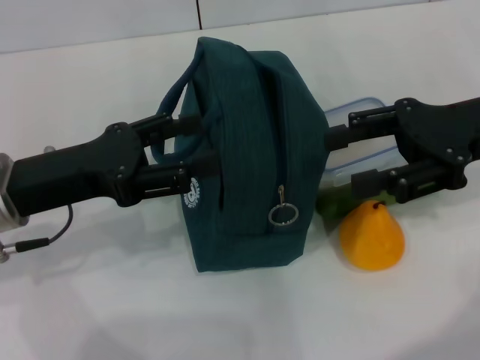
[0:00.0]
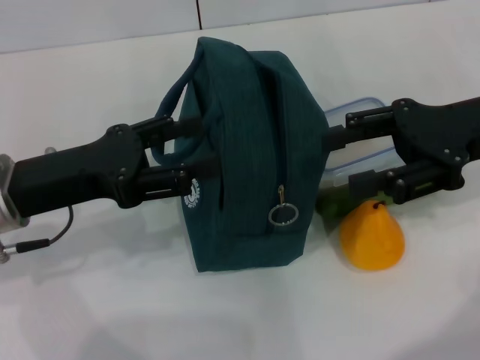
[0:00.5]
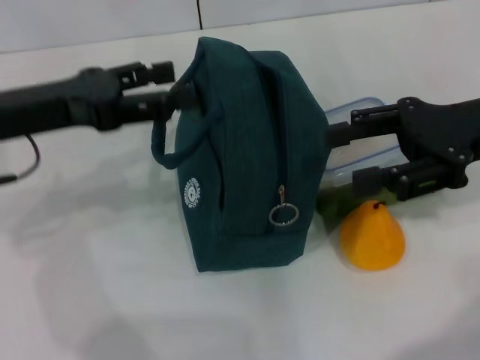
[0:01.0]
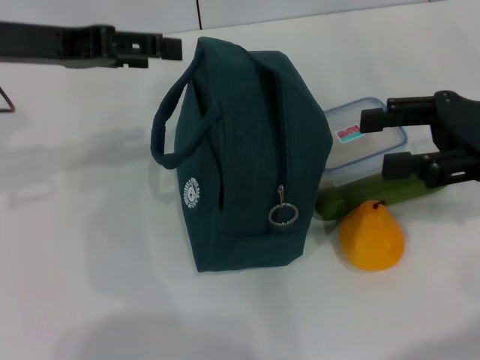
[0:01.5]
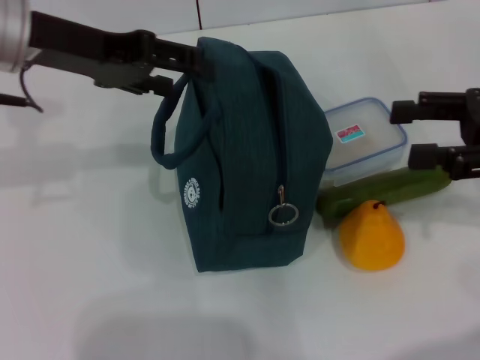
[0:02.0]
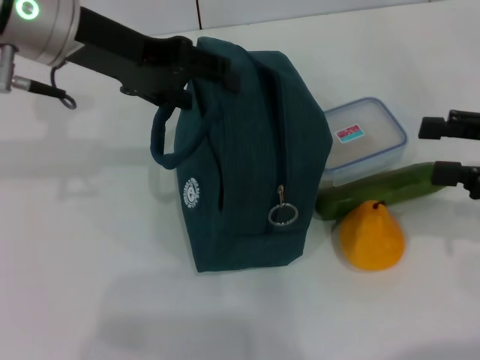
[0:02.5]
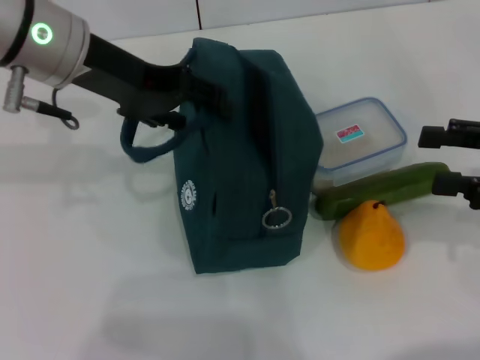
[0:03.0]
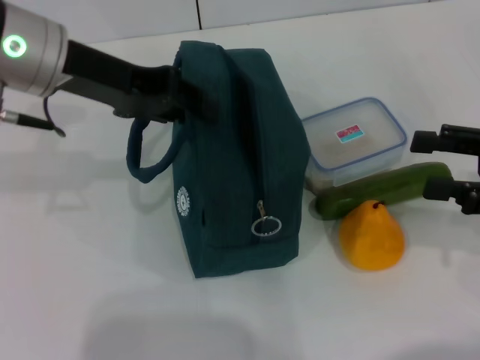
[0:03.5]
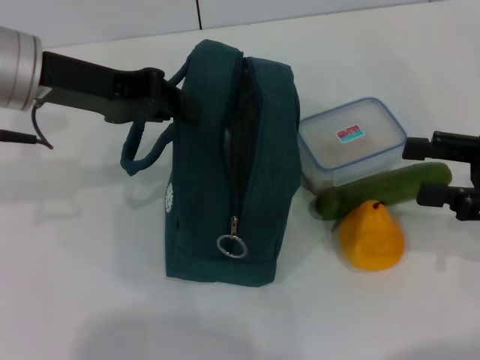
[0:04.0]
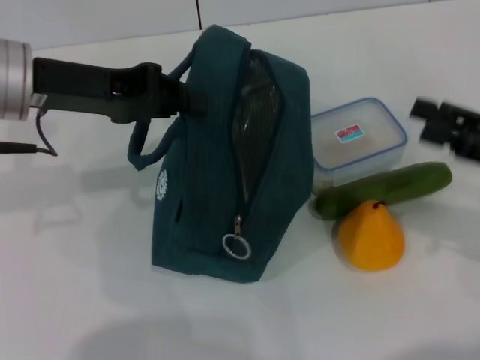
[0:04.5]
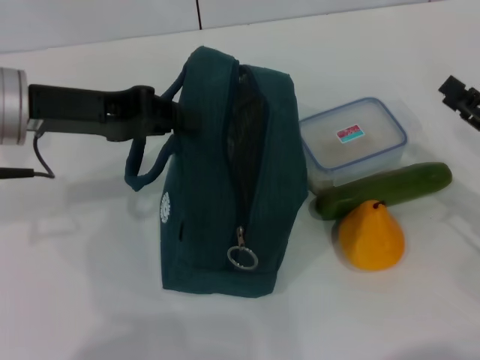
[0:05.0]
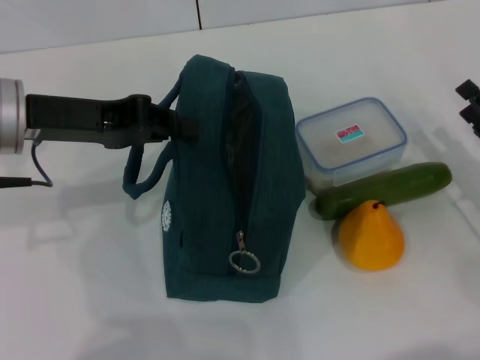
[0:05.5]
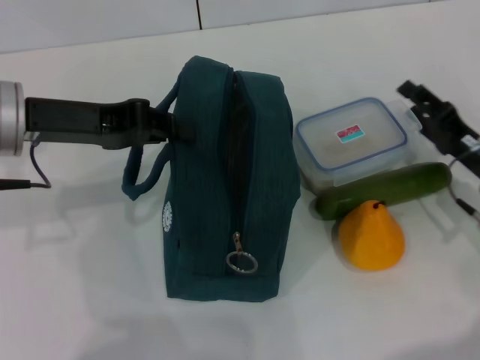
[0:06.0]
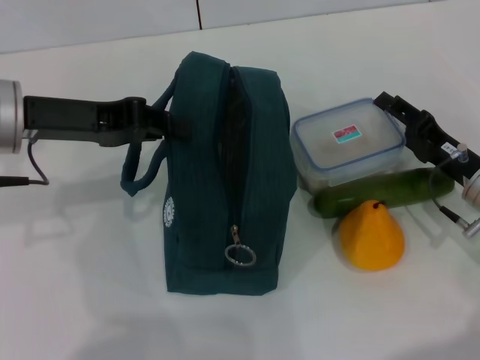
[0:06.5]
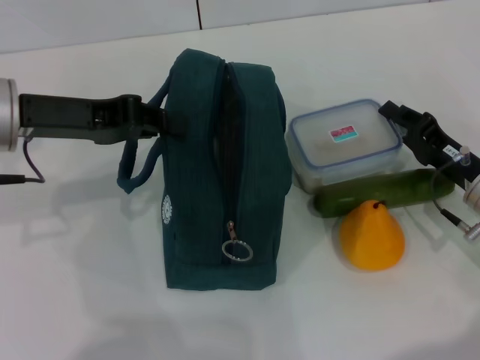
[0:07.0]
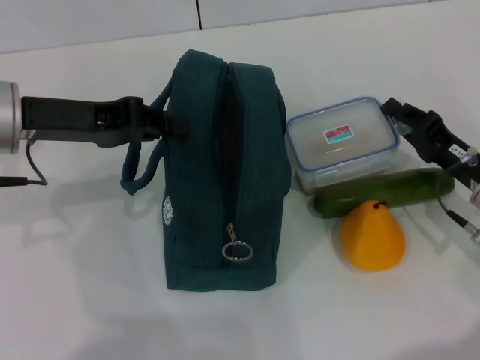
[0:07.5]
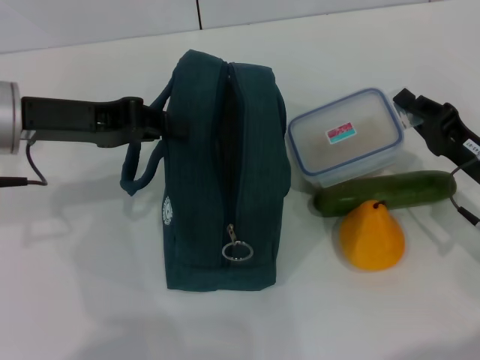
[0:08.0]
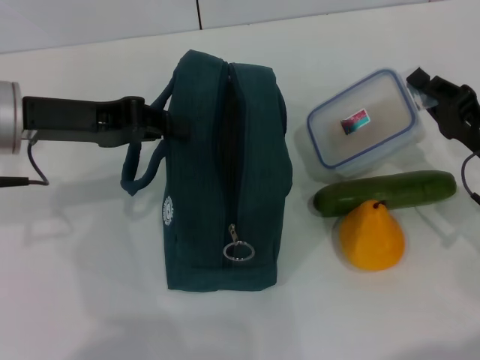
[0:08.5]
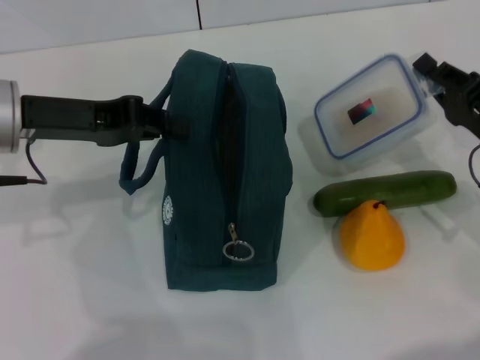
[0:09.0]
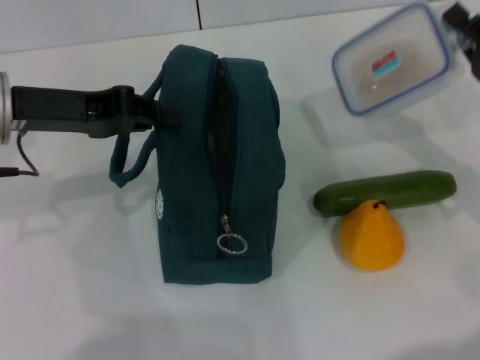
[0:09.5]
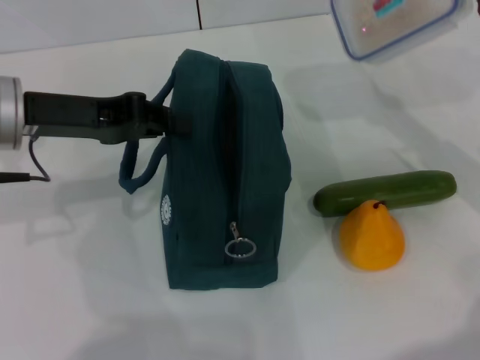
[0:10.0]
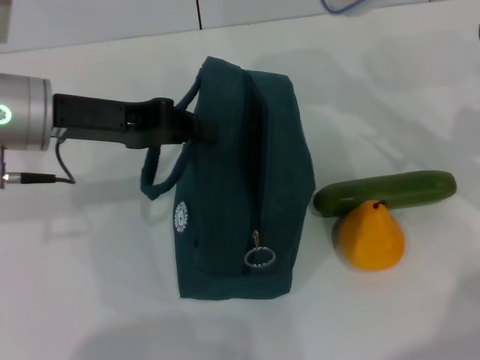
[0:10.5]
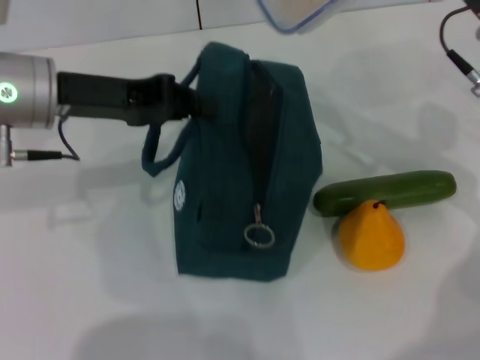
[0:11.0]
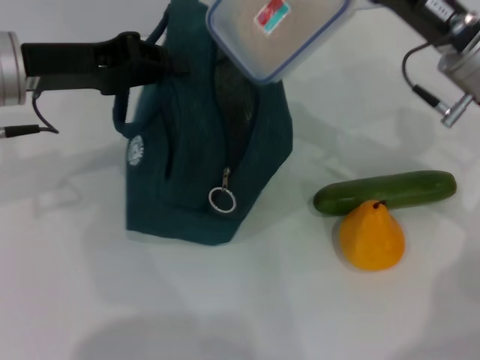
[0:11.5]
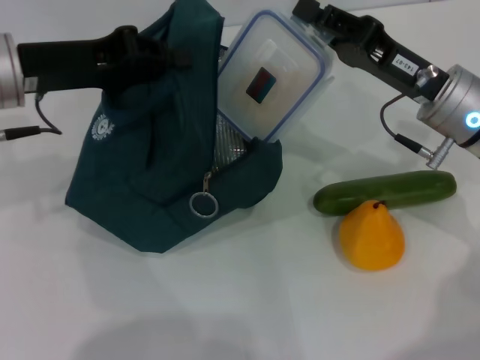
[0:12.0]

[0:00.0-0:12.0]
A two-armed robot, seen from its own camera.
Step, 0:00.0 to 0:03.5: Hold the lunch bag with your left hand.
Step, 0:04.0 to 0:07.5: Pick up the lunch box with your right hand.
0:00.0 to 0:02.0: The left gripper heads upward and forward, covering some 15 cm. Meanwhile the right gripper goes some 5 cm to the right.
0:02.0 to 0:04.0: The left gripper closes up. Meanwhile the right gripper shifts by approximately 5 cm.
0:04.0 to 0:06.0: The right gripper shifts about 10 cm downward.
0:06.0 to 0:08.0: The right gripper closes its fingers.
0:08.0 to 0:10.0: The right gripper goes roughly 10 cm upward.
0:10.0 to 0:12.0: The right gripper travels to the left by some 10 cm.

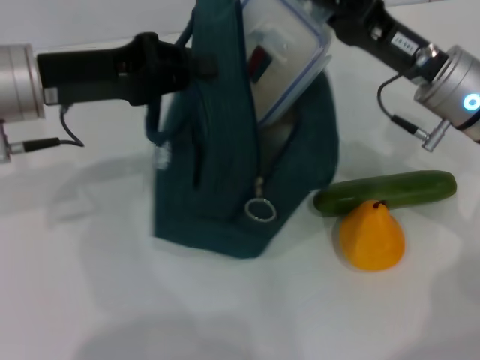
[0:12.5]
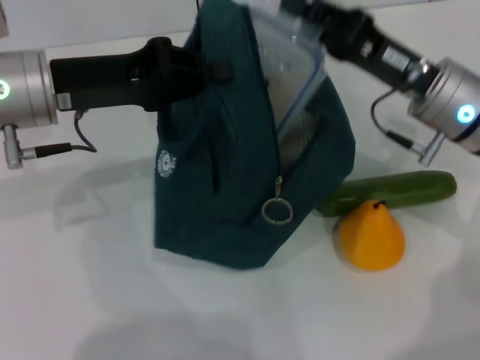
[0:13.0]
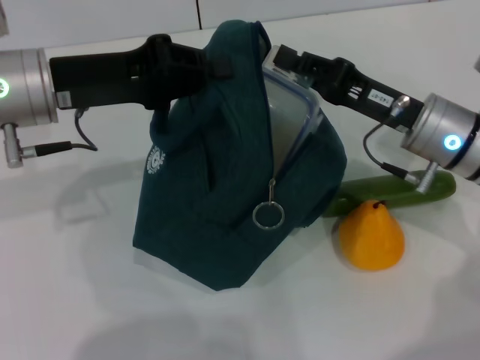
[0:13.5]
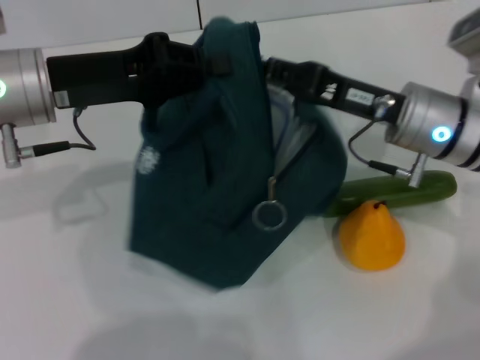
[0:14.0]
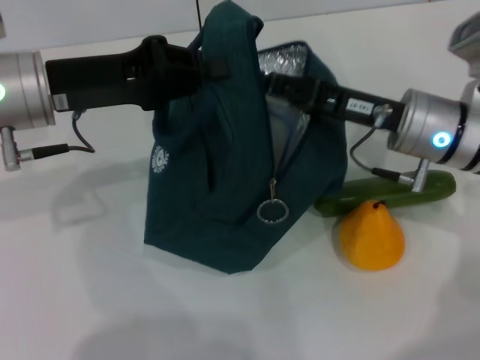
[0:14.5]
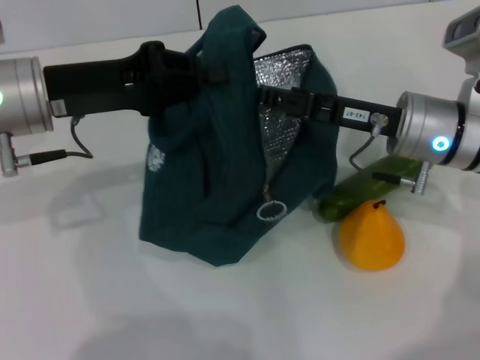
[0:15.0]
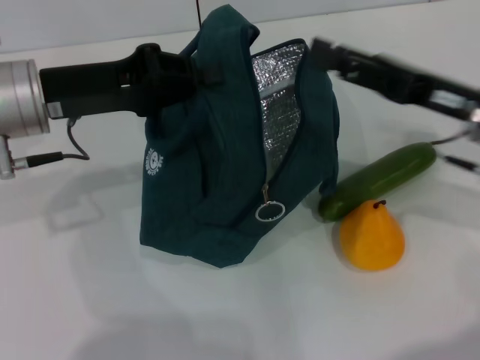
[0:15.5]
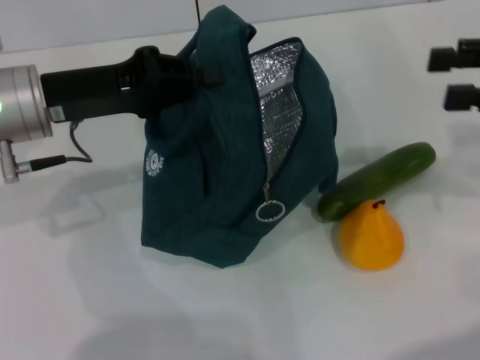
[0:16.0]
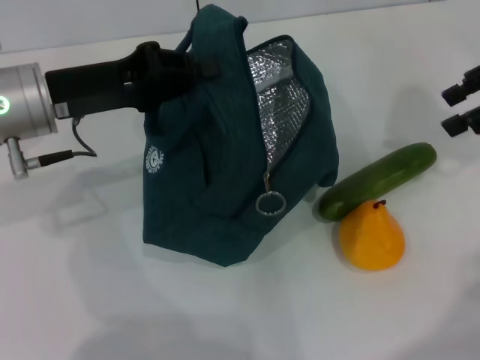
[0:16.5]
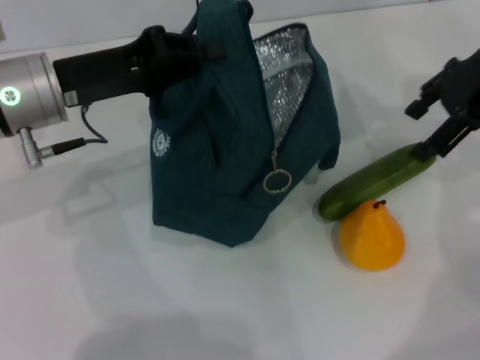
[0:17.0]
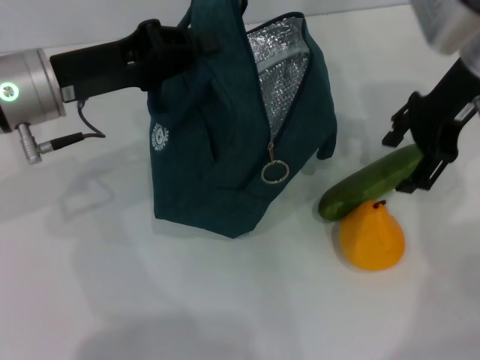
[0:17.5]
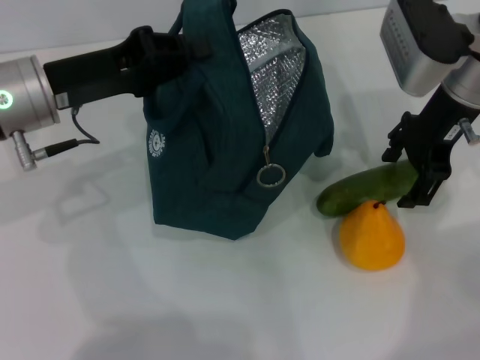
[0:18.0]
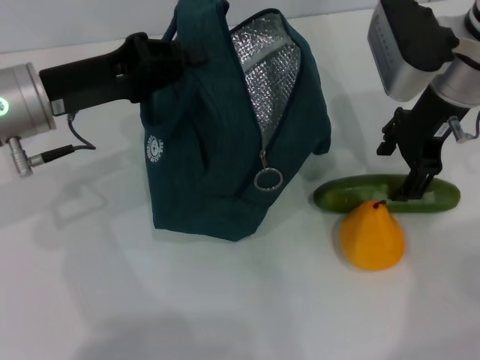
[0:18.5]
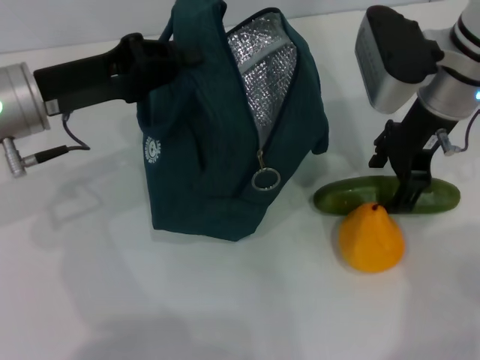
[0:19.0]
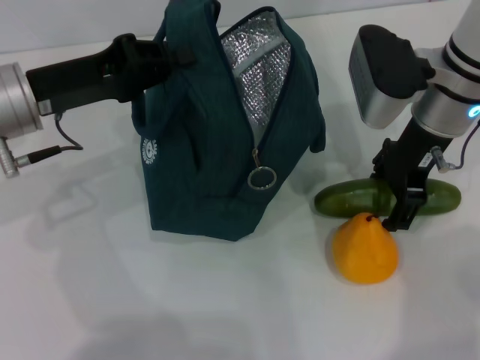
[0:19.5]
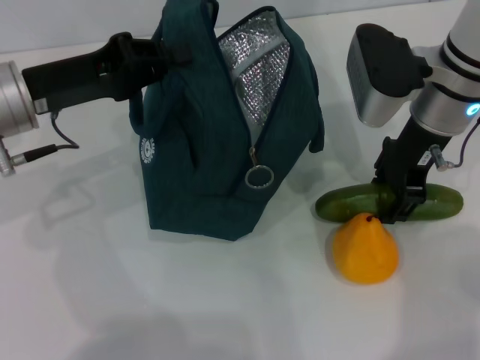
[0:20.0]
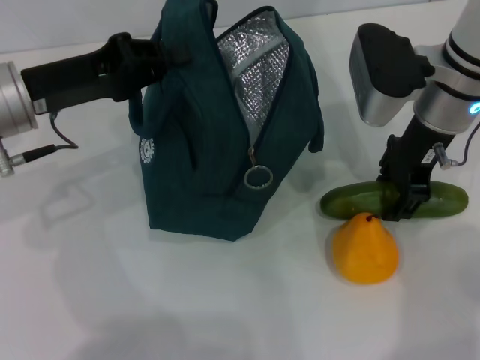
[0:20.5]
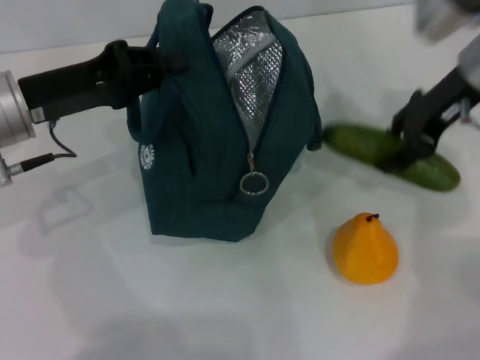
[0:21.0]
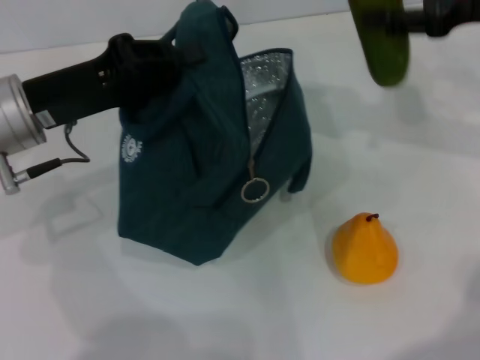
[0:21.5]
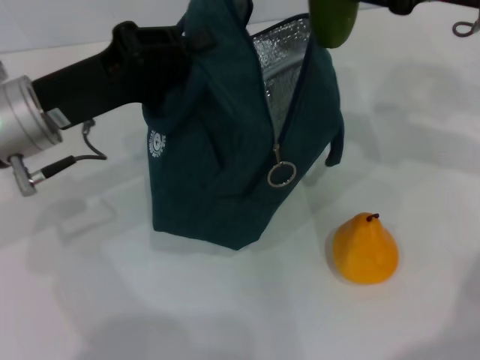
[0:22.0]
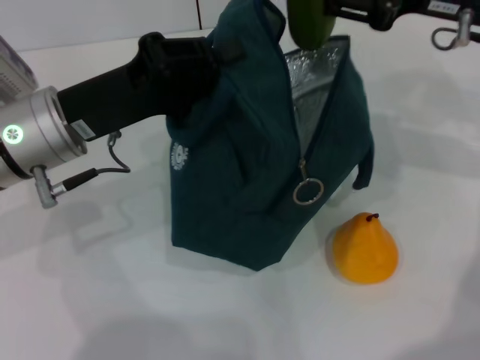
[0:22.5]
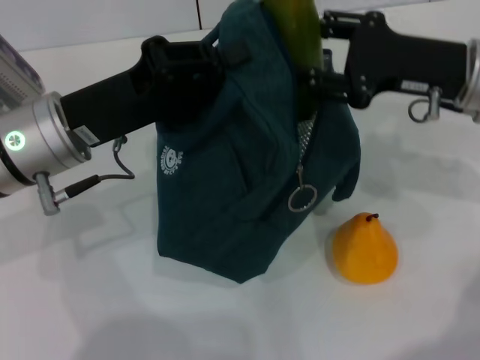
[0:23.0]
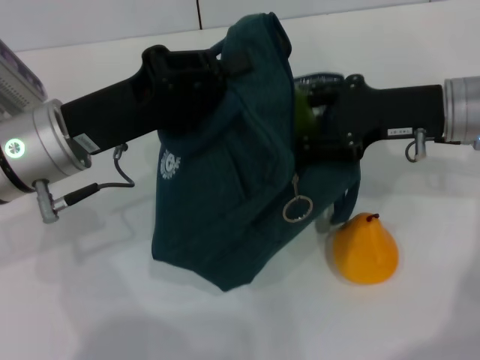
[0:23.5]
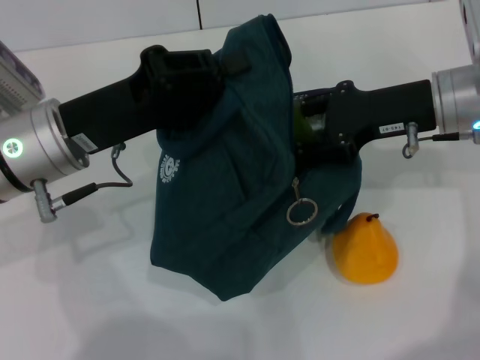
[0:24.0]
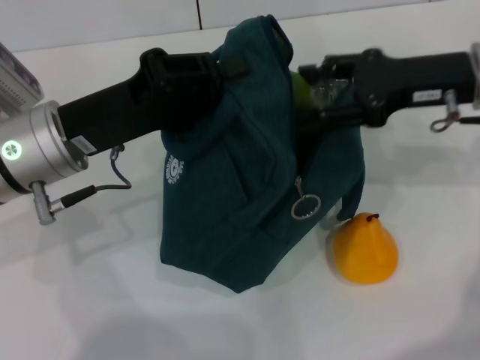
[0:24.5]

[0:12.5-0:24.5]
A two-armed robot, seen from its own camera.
Step, 0:12.5 to 0:15.5: Place the lunch box into the lunch bag with your right hand.
Step, 0:16.0 to 0:19.5: Pick up the cucumber with your right hand.
0:14.5 to 0:16.5: The right gripper moves to the right and upward, approximately 20 cm, and opens.
0:16.5 to 0:18.5: The right gripper travels to the left and downward by about 15 cm.
0:20.5 to 0:22.5: The right gripper heads to the right and upward, covering about 10 cm.

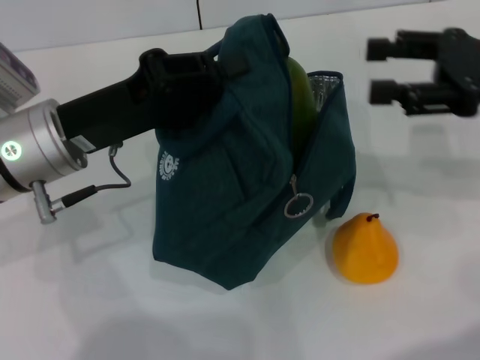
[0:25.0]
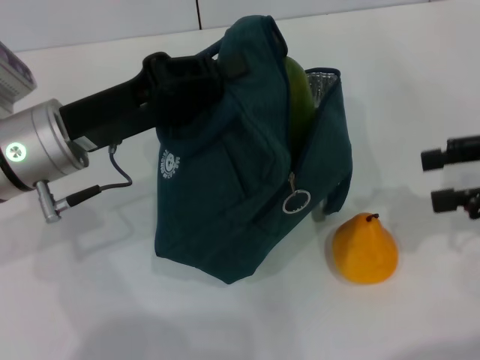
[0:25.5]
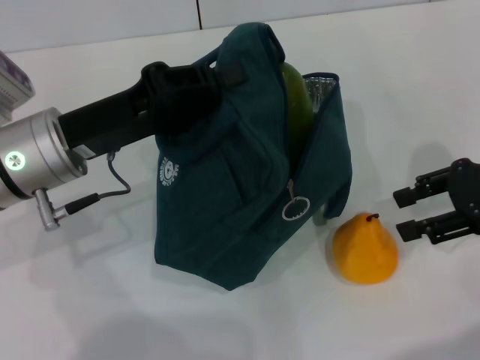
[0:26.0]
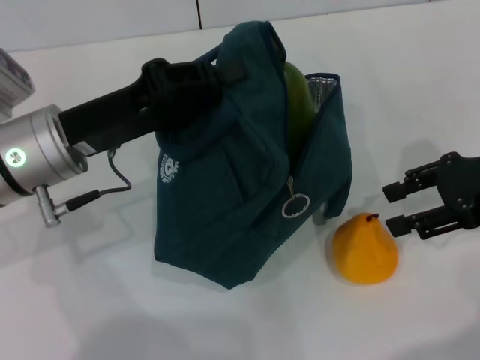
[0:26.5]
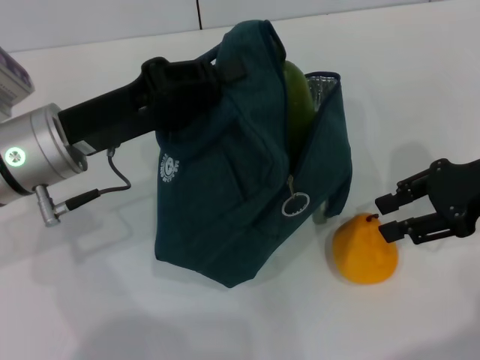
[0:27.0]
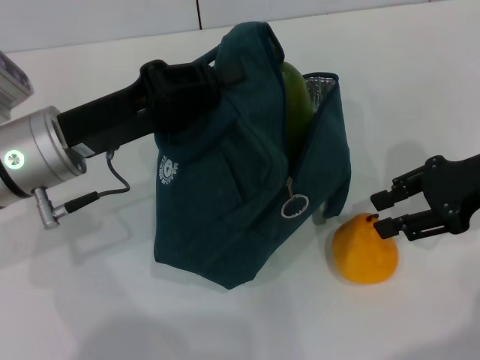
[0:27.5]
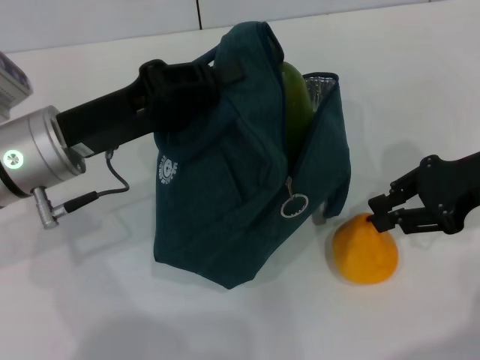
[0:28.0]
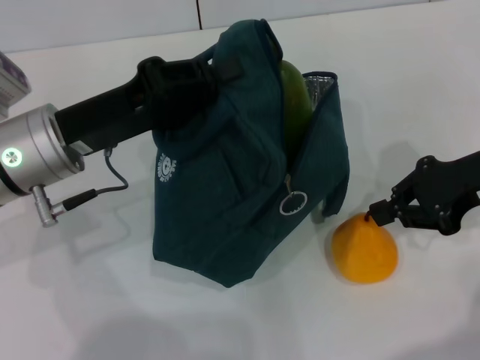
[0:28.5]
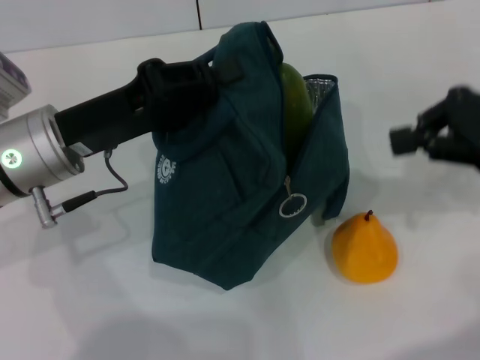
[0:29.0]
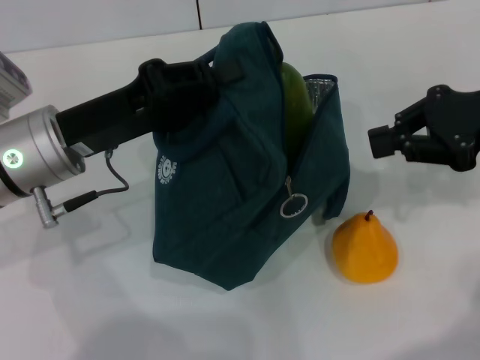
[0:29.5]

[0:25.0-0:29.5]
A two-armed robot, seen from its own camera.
0:27.0 to 0:29.5: The right gripper closes.
